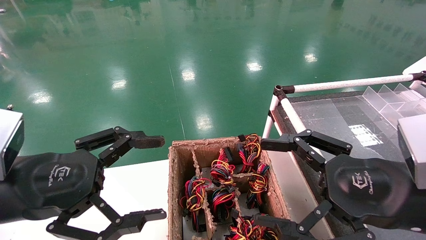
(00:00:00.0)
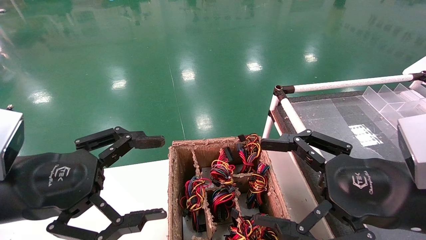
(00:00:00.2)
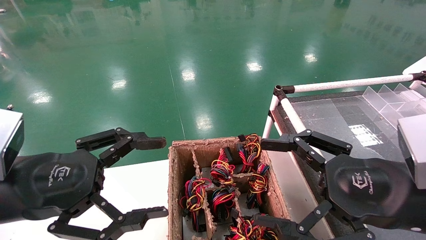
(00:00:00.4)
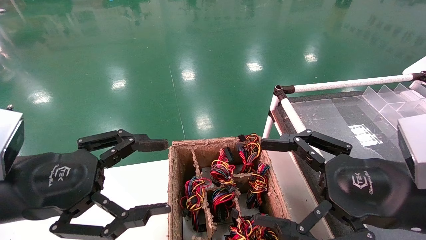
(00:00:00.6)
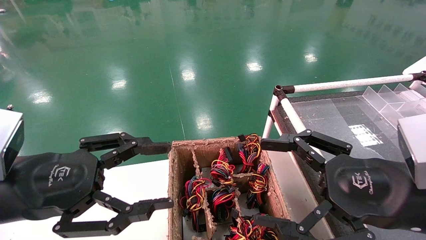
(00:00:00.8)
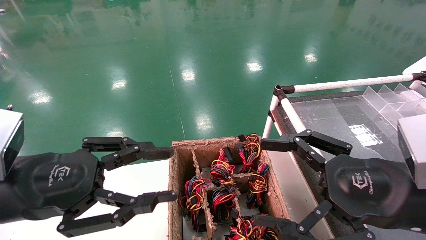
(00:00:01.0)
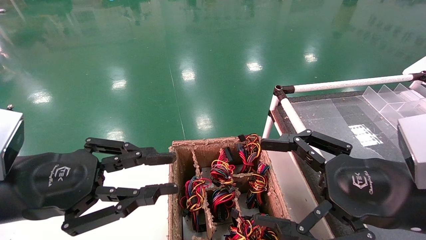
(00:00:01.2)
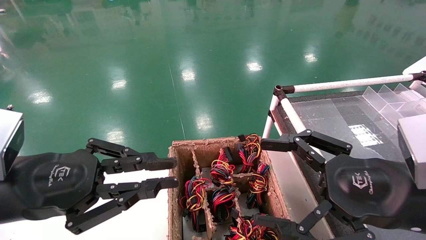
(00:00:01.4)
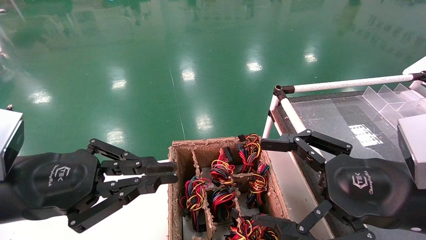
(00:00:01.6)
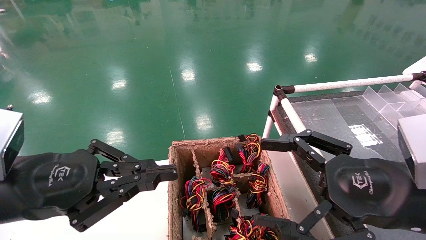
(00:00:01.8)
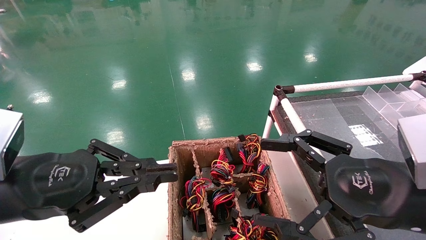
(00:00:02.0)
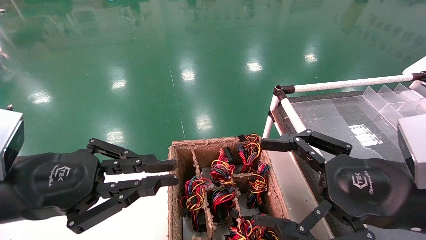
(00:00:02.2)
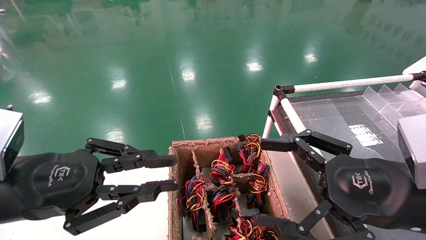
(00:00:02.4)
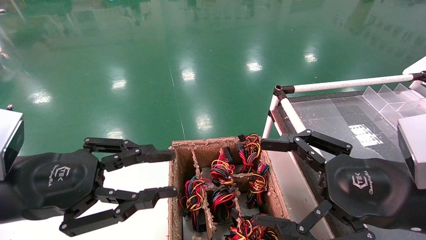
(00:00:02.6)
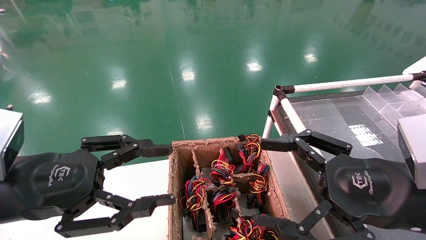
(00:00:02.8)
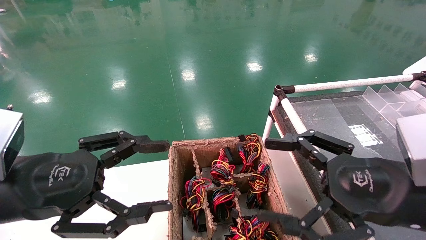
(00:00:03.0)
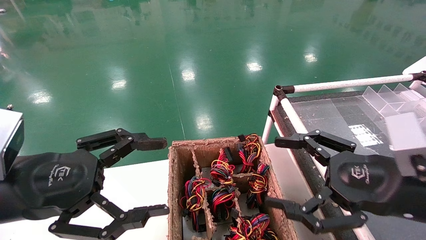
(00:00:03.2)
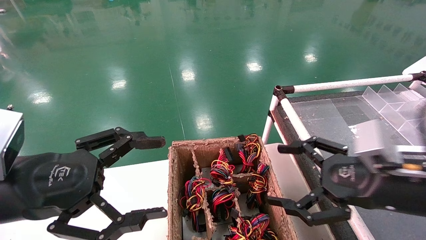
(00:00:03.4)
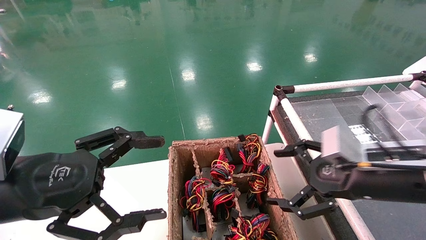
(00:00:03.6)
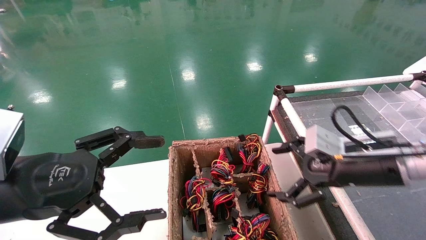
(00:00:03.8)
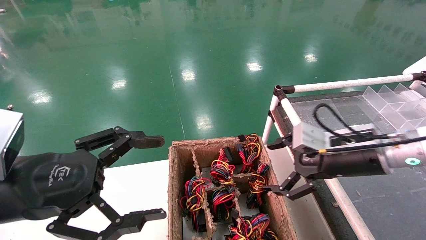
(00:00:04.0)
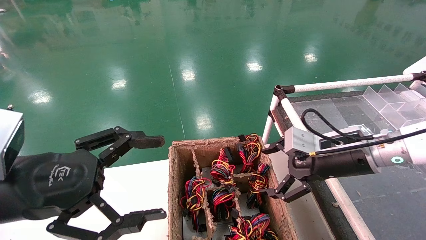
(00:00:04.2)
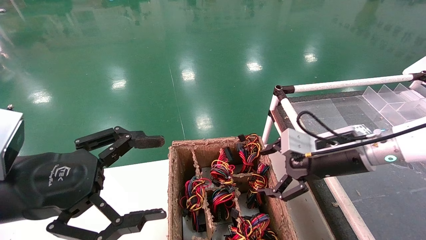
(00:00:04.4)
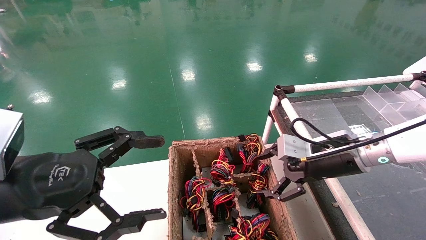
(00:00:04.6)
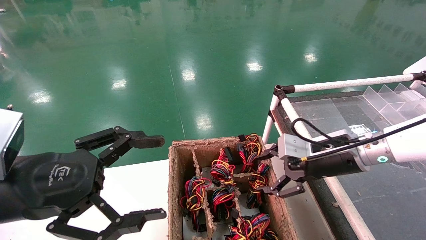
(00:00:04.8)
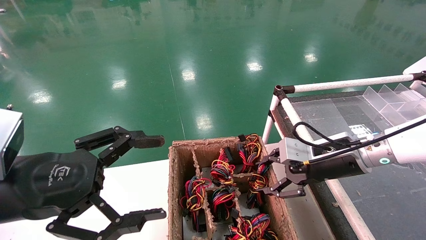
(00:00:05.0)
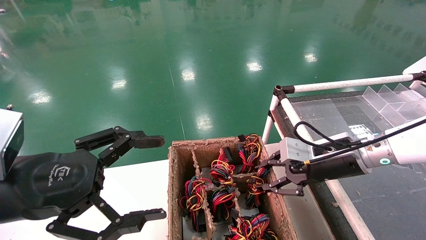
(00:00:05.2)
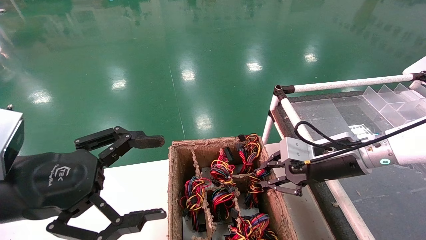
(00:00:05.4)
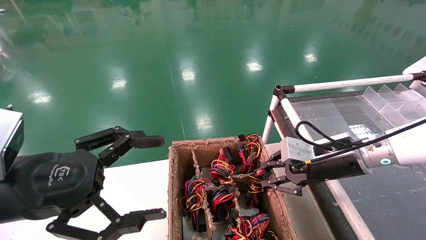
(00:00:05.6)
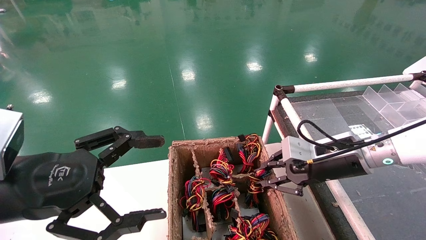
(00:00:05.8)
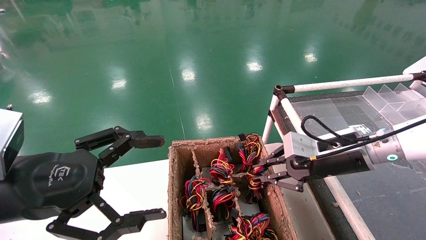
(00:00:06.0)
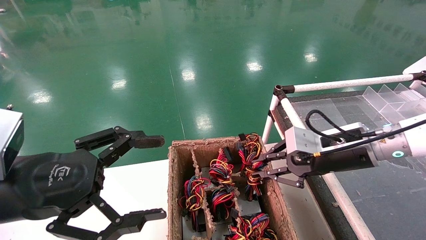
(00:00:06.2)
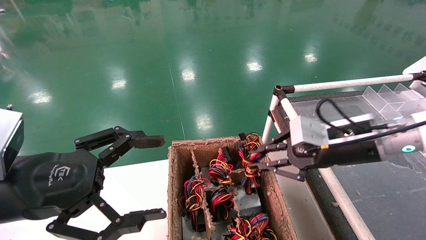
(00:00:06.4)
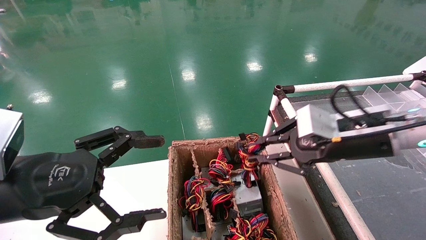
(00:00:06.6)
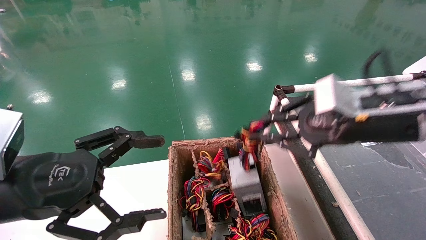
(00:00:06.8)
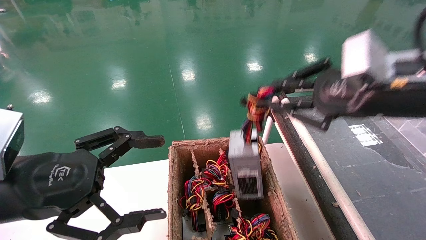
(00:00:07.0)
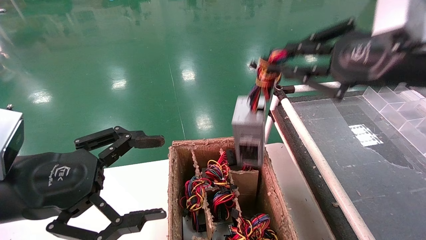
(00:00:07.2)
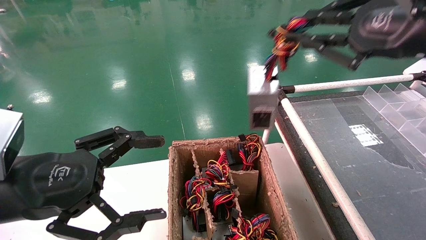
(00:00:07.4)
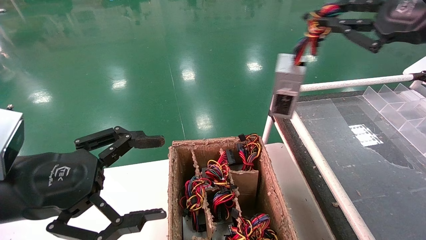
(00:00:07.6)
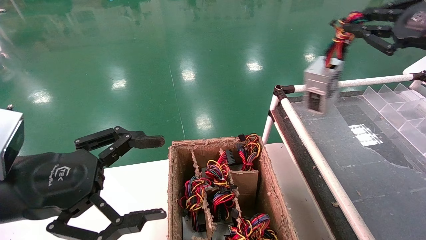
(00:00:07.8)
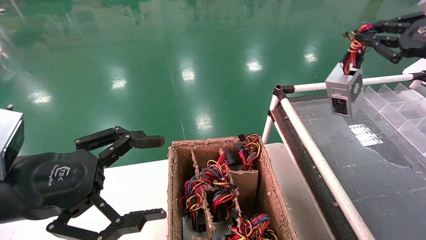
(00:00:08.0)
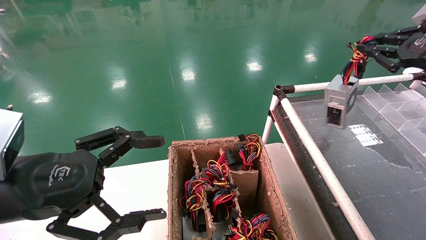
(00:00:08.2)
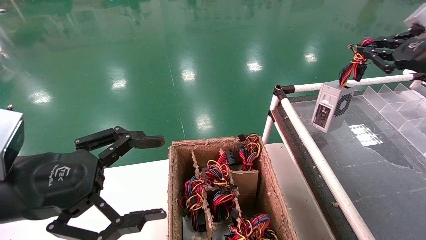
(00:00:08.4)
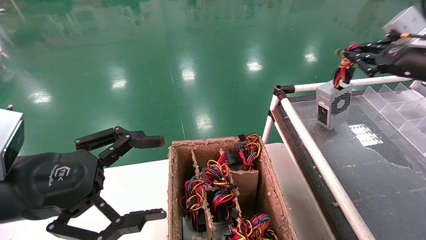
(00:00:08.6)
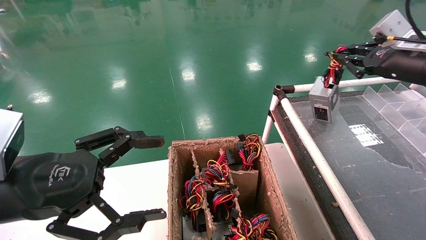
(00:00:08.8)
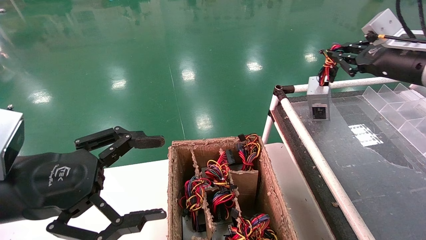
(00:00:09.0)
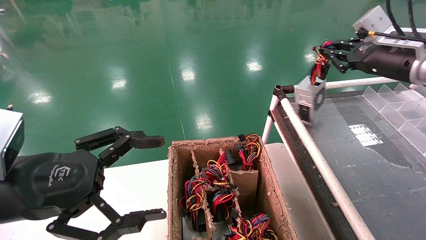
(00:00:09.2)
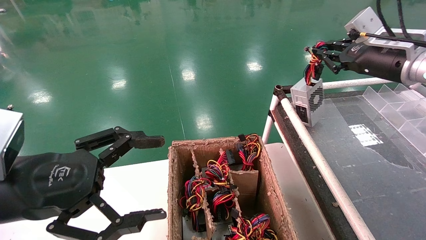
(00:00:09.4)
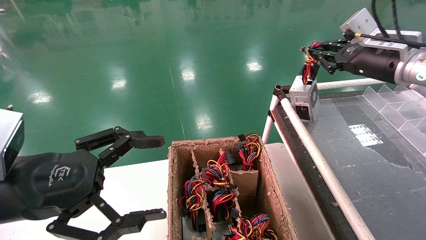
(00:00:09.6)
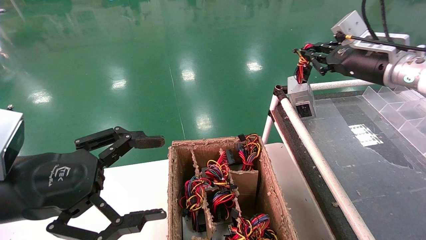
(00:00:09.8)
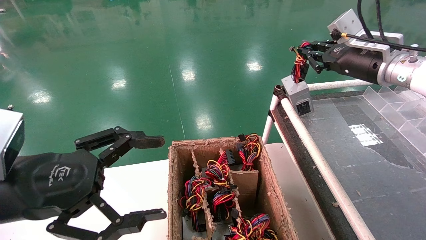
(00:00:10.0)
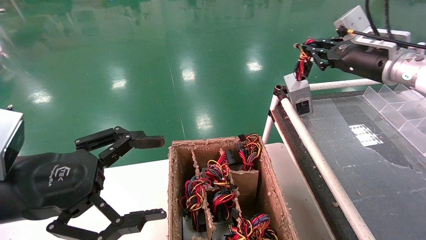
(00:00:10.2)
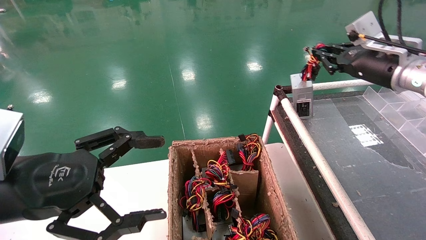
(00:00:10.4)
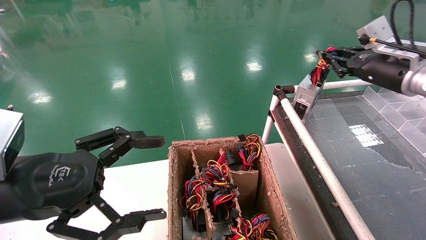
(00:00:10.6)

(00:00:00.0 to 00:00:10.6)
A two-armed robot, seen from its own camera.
Step, 00:00:01.8 - 00:00:05.6: Grab and lift the power supply from the large box.
00:00:00.0 - 00:00:01.6: The left gripper closes its fingers.
00:00:01.6 - 00:00:03.0: The left gripper opens.
00:00:03.0 - 00:00:04.6: The left gripper opens its fingers. Meanwhile the right gripper travels forward by about 15 cm.
00:00:04.6 - 00:00:06.0: The right gripper closes its fingers.
00:00:06.0 - 00:00:07.6: The right gripper moves upward and to the right, approximately 20 cm.
00:00:07.6 - 00:00:09.0: The right gripper moves forward and downward, some 15 cm.
00:00:09.0 - 00:00:10.6: The grippers make only small movements.

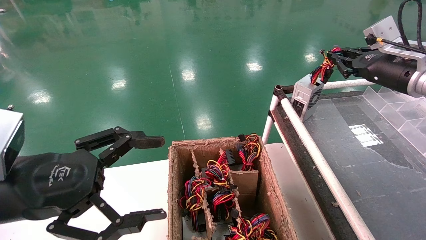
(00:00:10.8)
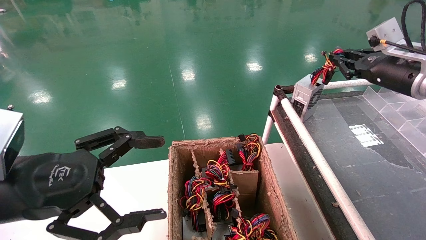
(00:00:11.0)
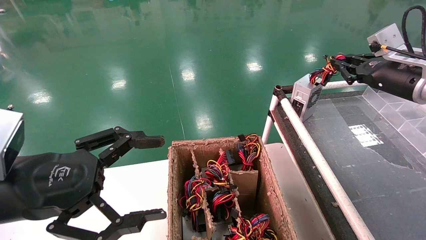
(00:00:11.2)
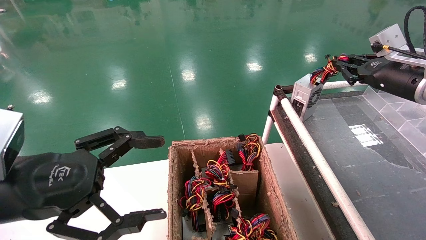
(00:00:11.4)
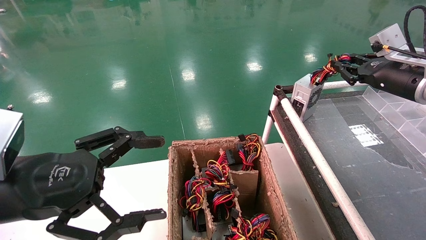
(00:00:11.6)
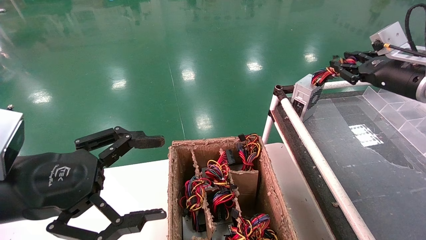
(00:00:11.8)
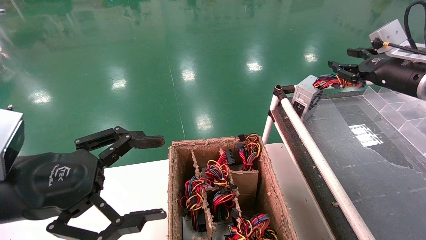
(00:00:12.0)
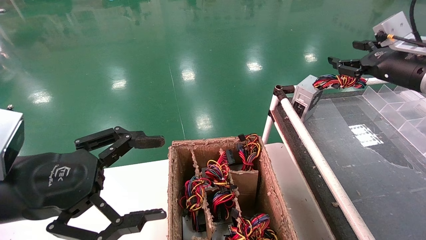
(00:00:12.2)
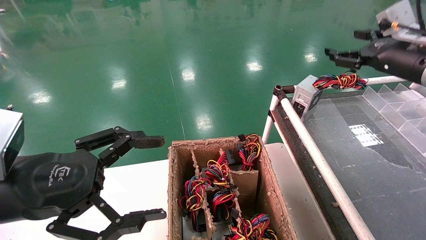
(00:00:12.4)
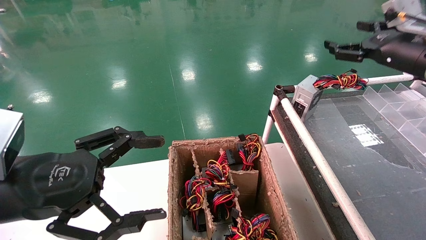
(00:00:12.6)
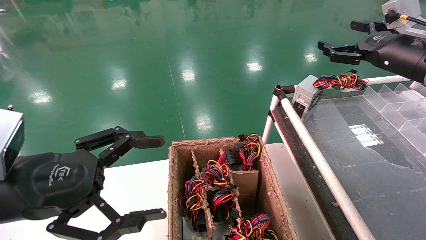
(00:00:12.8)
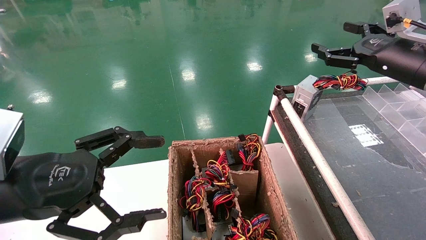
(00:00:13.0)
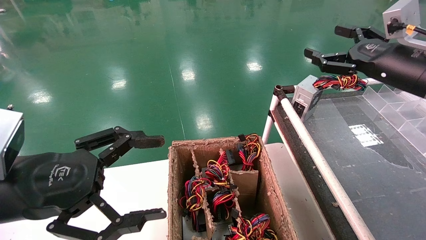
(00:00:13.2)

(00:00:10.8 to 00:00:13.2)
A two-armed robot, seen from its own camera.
00:00:10.8 - 00:00:12.0: There are only small adjustments of the grippers.
00:00:12.0 - 00:00:13.2: The right gripper shifts by some 5 cm, and opens.
